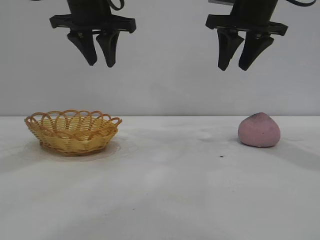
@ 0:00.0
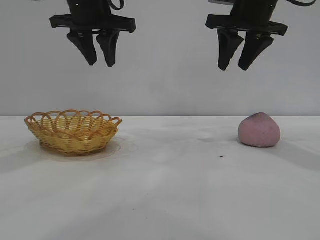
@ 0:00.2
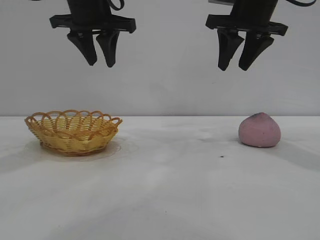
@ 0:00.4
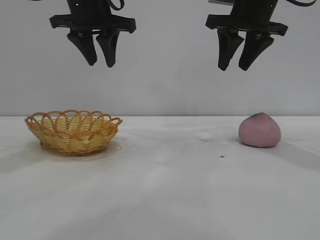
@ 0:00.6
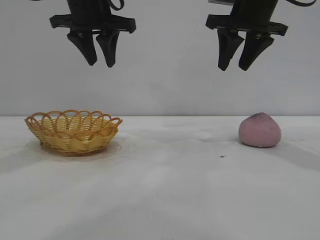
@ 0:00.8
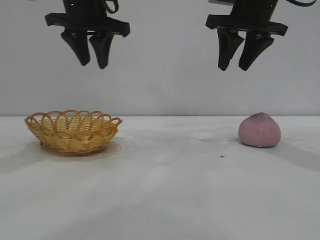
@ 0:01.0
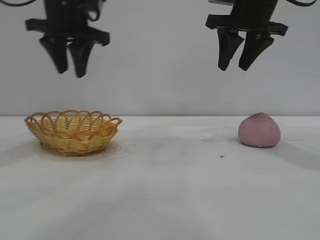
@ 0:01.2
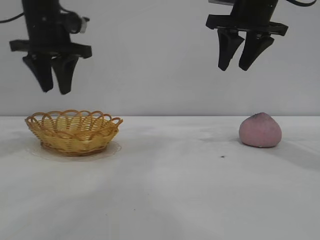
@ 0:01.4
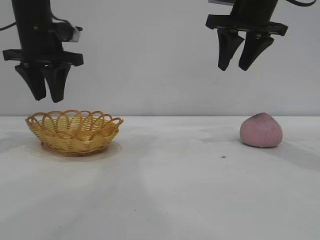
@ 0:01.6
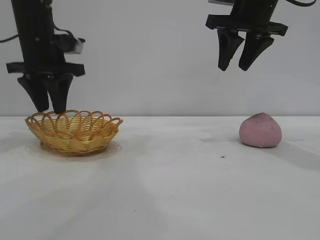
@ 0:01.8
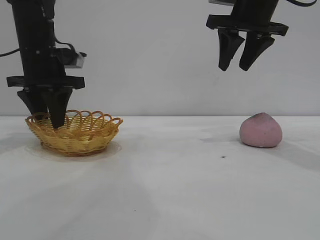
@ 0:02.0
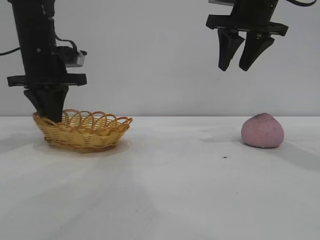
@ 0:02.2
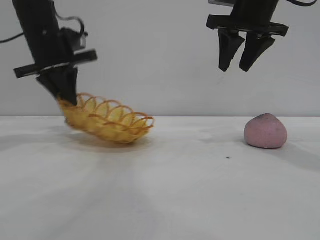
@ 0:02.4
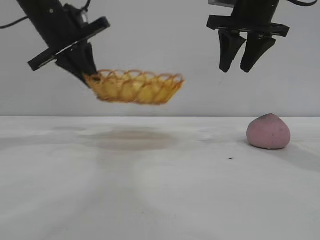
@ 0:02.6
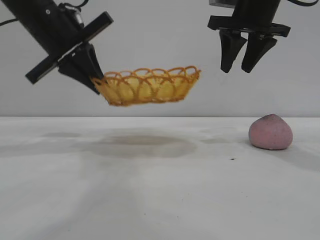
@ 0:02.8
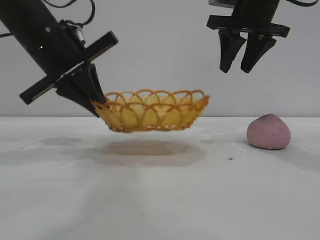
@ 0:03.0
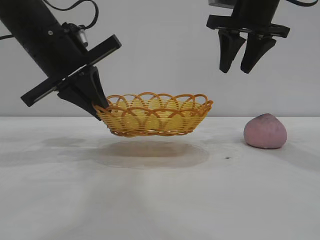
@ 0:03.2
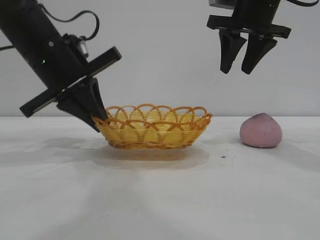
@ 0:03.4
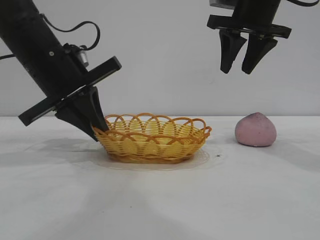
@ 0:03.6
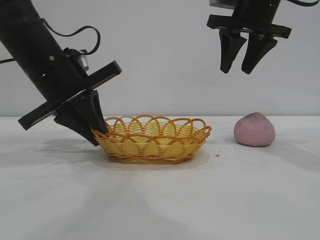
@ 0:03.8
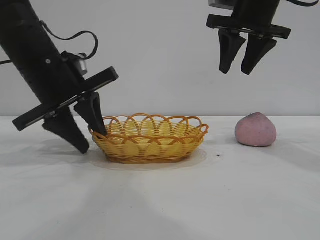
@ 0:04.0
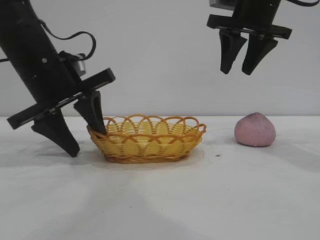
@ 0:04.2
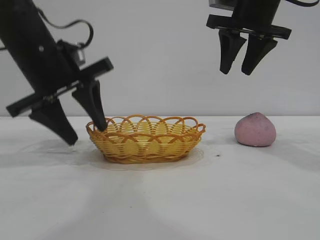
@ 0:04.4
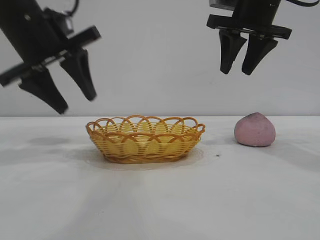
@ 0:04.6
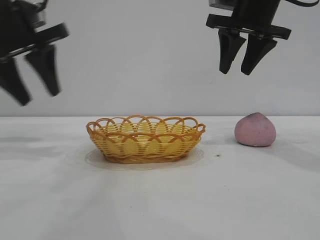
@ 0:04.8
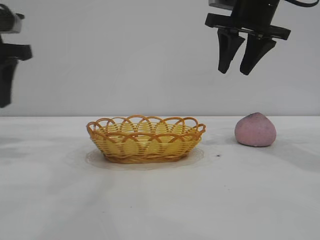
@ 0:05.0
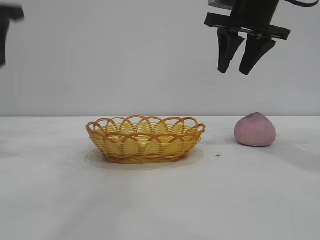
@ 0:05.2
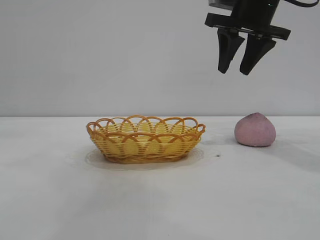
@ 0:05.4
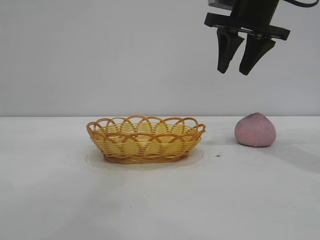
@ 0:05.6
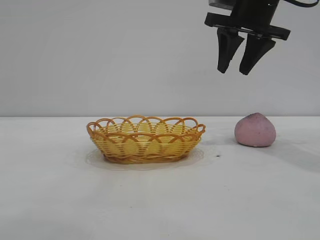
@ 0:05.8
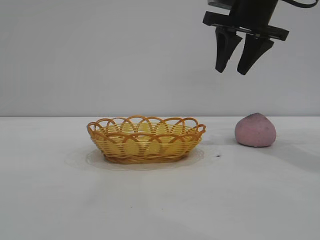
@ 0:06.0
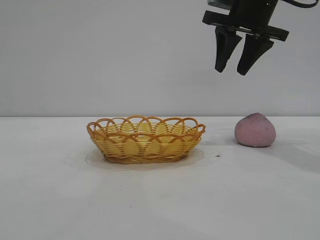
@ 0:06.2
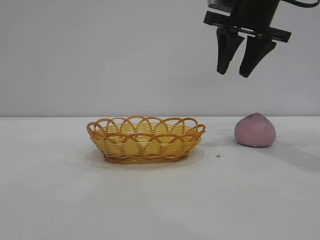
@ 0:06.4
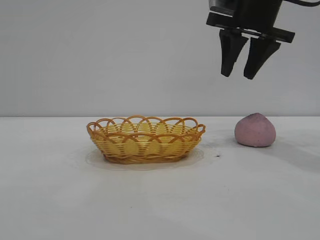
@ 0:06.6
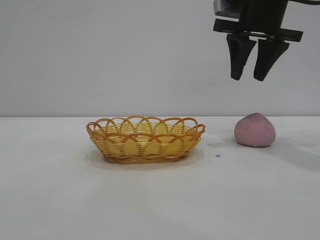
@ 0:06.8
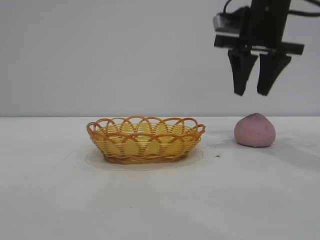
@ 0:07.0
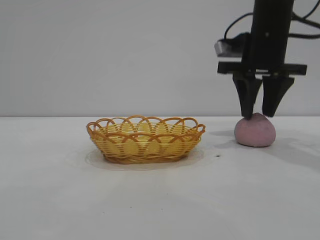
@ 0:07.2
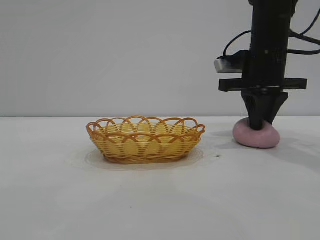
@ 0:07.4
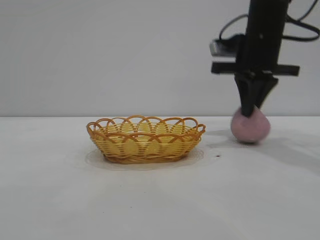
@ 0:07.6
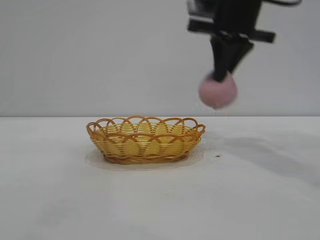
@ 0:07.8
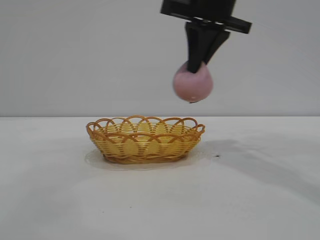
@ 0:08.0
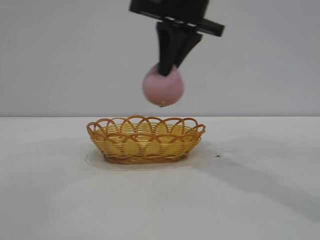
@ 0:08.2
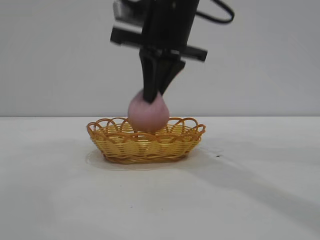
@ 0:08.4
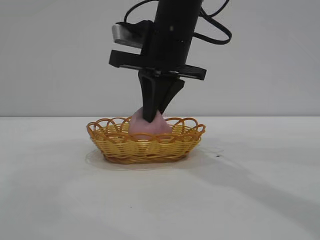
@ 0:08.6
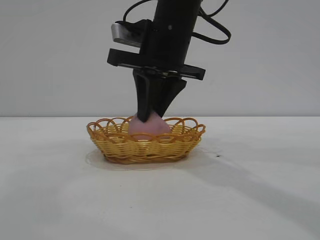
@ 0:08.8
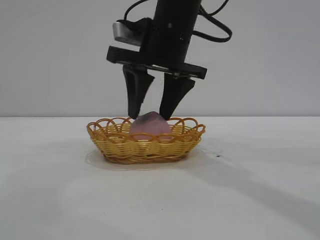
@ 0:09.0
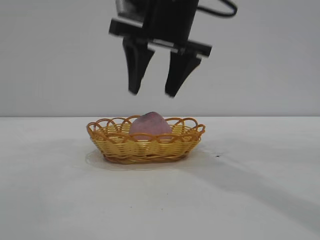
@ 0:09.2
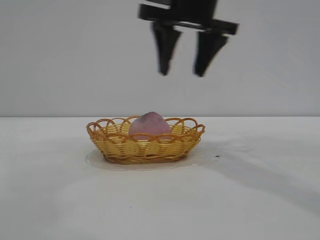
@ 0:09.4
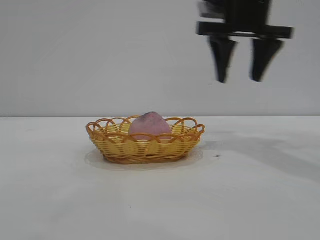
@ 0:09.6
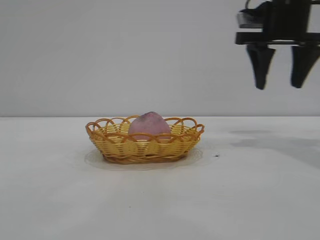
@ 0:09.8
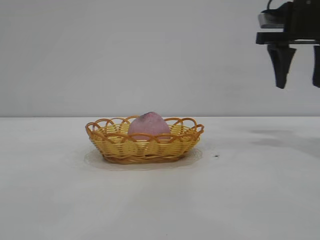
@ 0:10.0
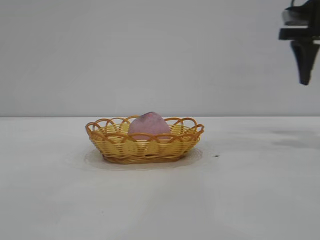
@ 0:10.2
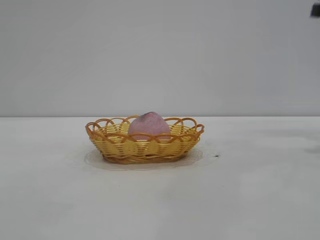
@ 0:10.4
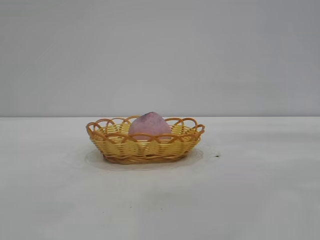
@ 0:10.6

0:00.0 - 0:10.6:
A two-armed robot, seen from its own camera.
Task of the whole recording: pick up the peach and put it into the basket.
Step, 0:00.0 - 0:04.6: Move the basket to the center of view.
Step, 0:04.8 - 0:07.6: Pick up the peach.
Step, 0:07.8 - 0:09.2: place the peach into the basket.
